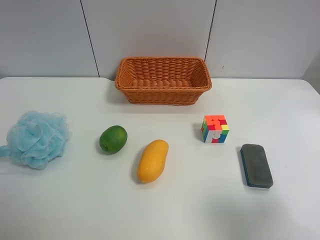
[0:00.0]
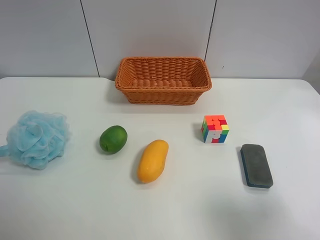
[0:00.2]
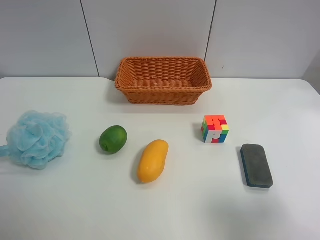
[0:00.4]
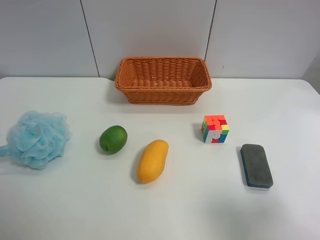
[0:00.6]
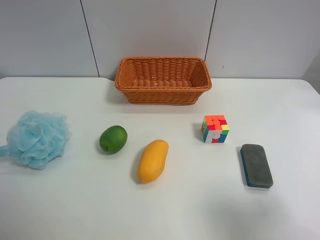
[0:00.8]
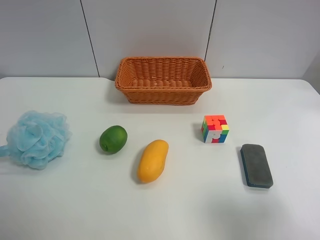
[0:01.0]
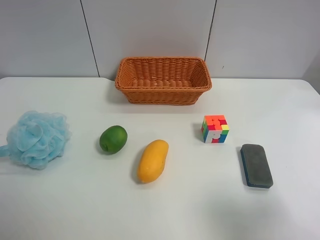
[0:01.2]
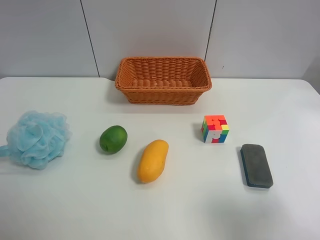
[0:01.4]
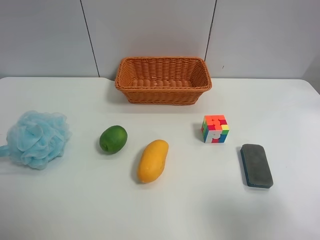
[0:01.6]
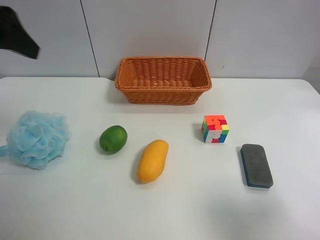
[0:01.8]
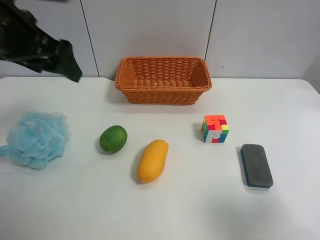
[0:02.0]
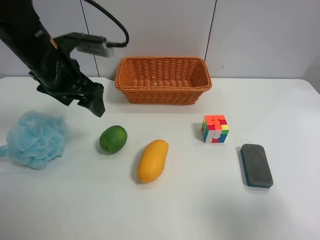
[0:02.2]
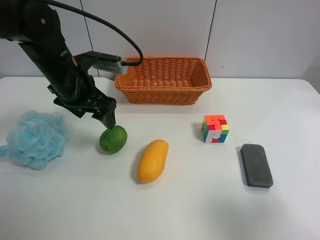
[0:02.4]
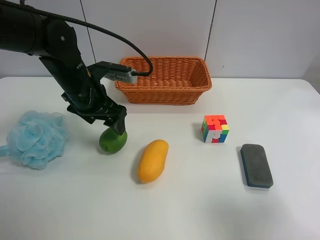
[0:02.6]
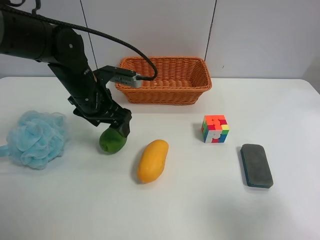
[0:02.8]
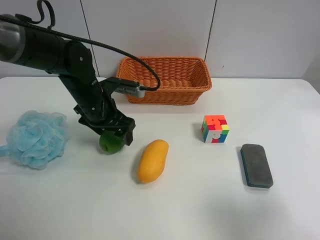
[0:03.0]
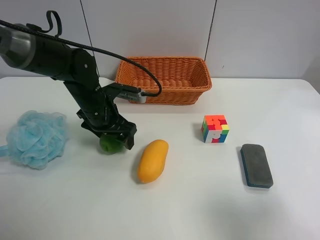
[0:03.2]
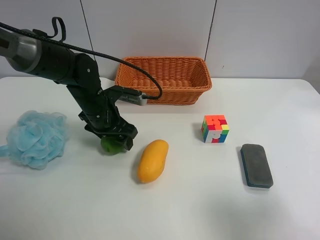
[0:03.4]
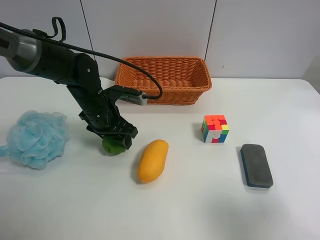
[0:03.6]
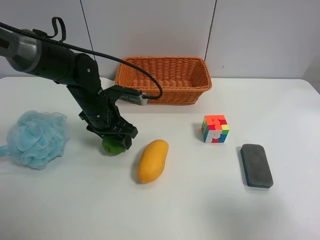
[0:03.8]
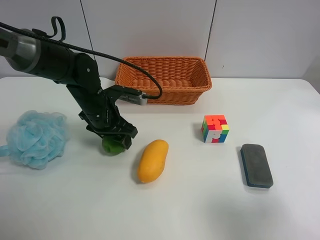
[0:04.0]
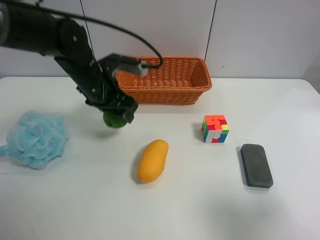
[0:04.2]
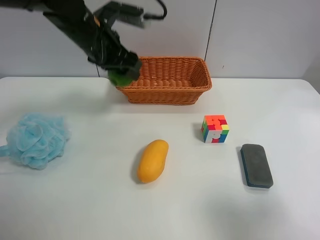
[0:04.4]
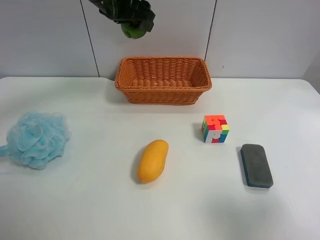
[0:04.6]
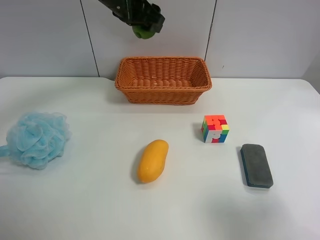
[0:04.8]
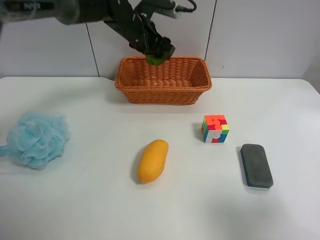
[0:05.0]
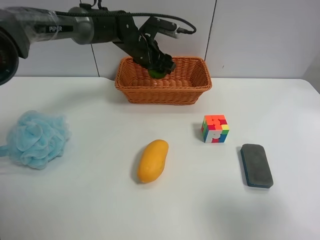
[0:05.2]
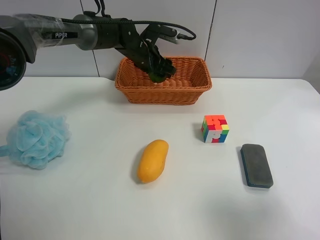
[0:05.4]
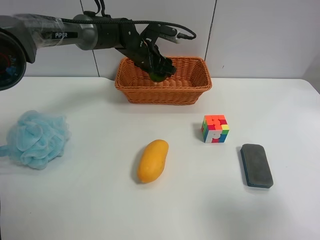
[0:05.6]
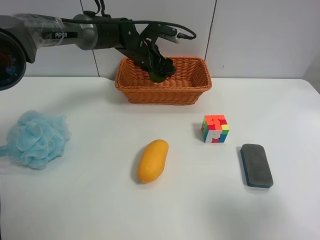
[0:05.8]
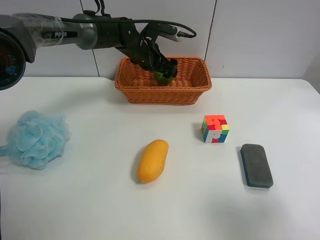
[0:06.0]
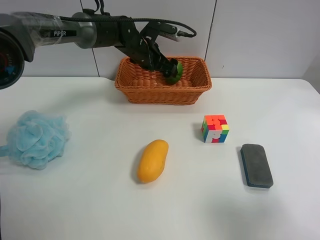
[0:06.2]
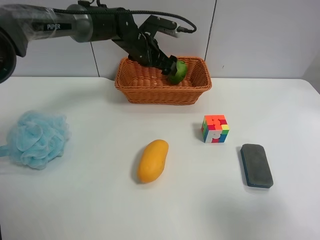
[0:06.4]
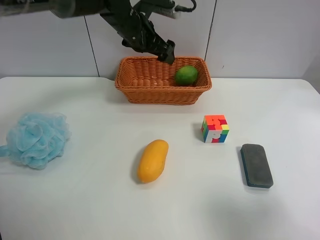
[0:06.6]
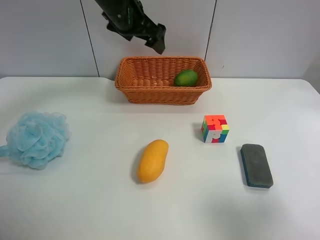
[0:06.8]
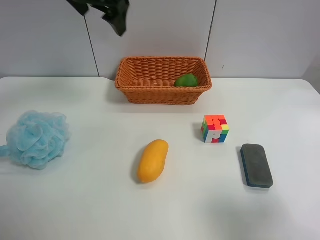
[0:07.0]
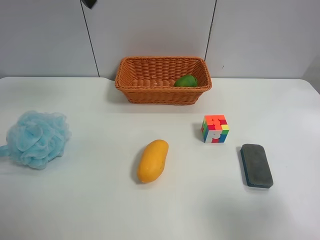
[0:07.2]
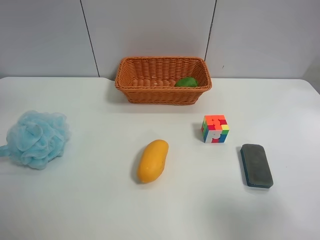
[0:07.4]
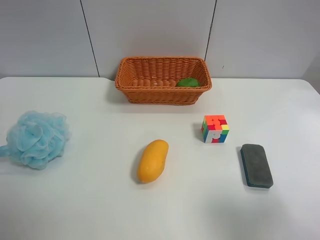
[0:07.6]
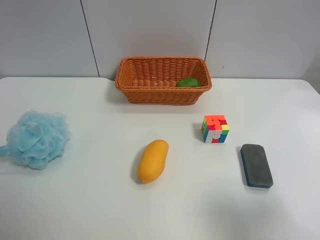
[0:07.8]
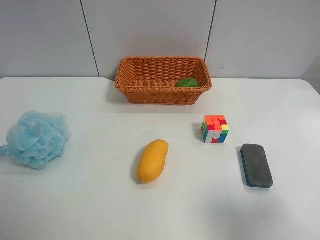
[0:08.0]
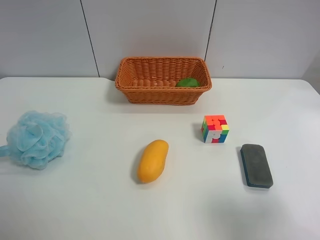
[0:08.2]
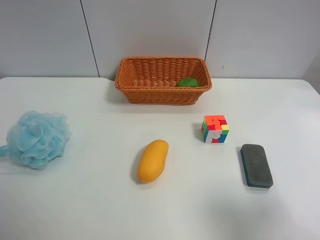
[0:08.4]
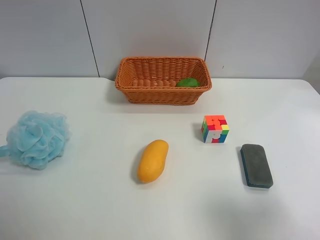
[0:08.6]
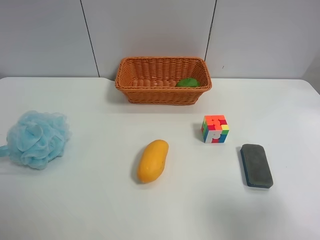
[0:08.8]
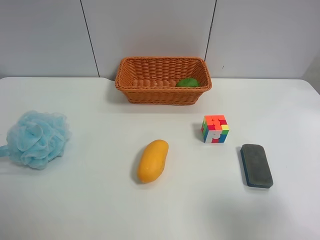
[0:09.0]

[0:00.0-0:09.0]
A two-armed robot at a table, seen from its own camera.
Task of the whole recording: use the left gripper to grab items from the table and place them in the basket.
Step, 0:00.0 to 0:03.6: Grasp the apple rubber puff with the left gripper.
Step, 0:03.8 to 0:06.0: Place the apple rubber puff into the basket with the left gripper.
0:01.6 to 0:03.0: The left gripper heads downward, forward and to the right, covering roughly 35 cm.
0:03.0 to 0:04.4: The left gripper shifts about 10 cm upward, and closes.
0:04.4 to 0:06.0: The left gripper goes roughly 15 cm forward, downward and to the right, and opens.
0:06.0 to 0:07.6: The left gripper travels backward, upward and to the left by approximately 50 cm.
